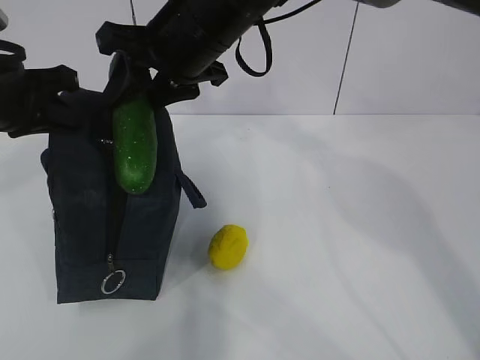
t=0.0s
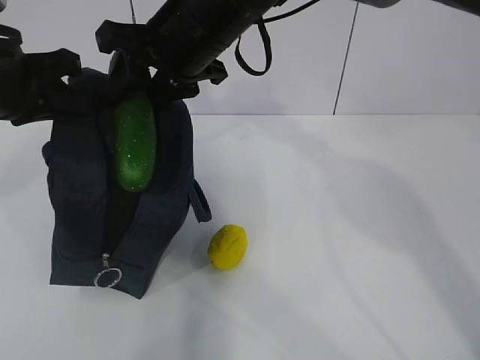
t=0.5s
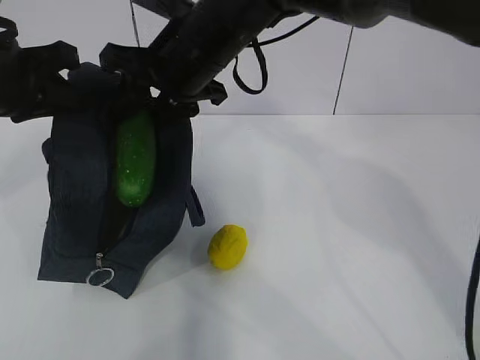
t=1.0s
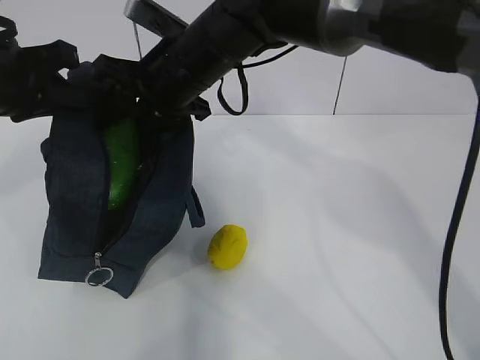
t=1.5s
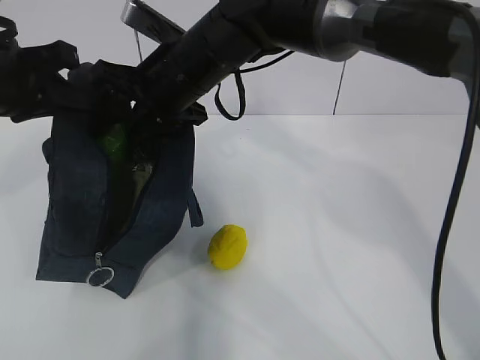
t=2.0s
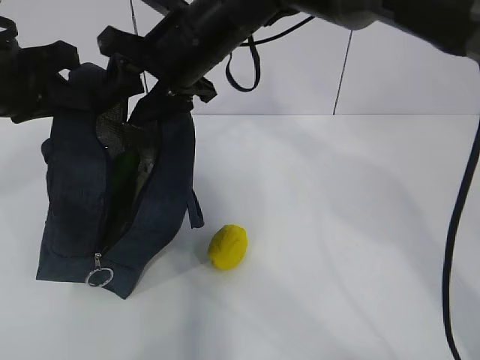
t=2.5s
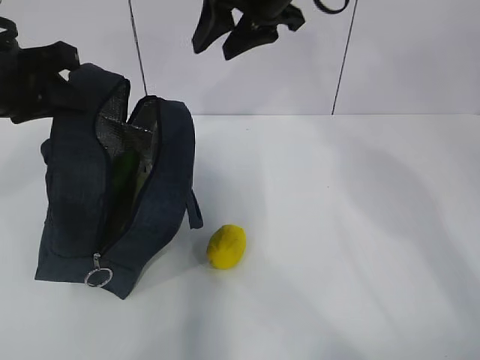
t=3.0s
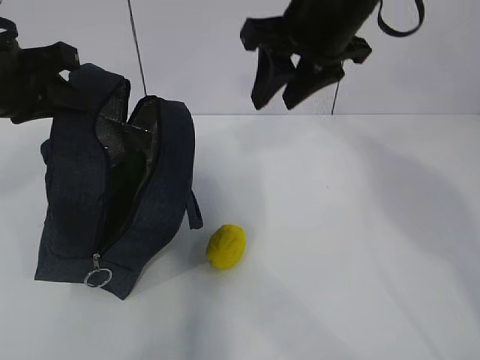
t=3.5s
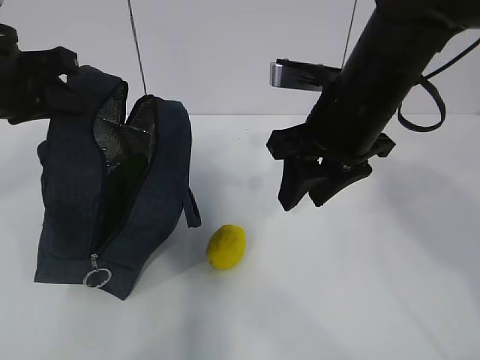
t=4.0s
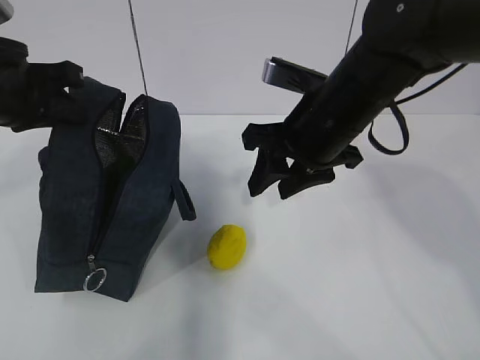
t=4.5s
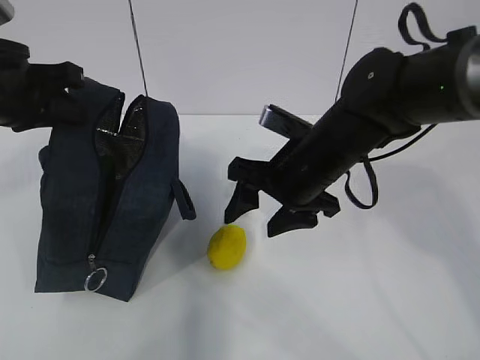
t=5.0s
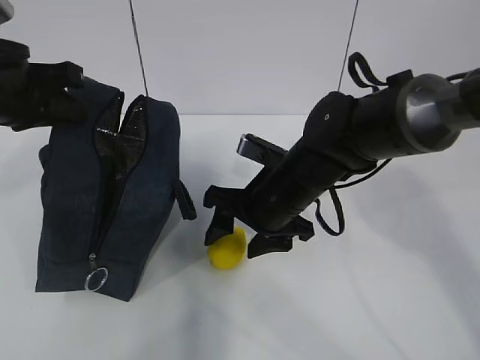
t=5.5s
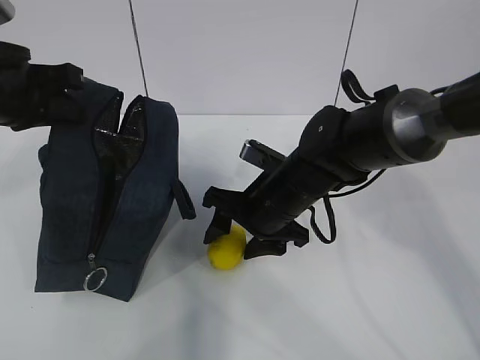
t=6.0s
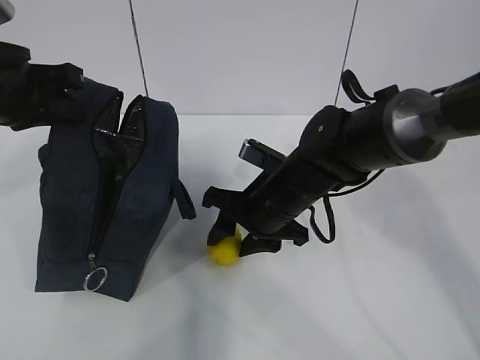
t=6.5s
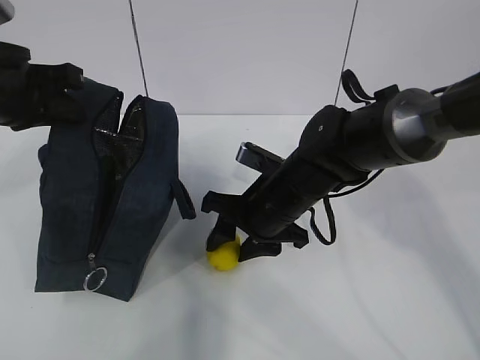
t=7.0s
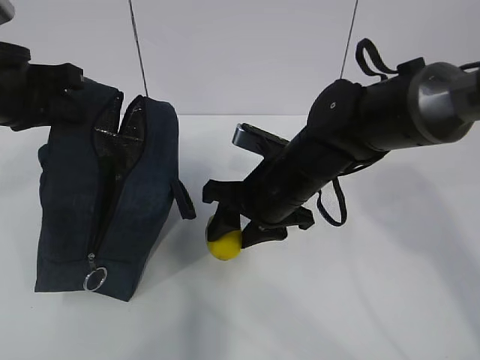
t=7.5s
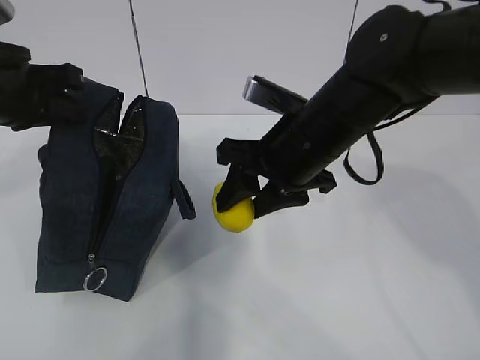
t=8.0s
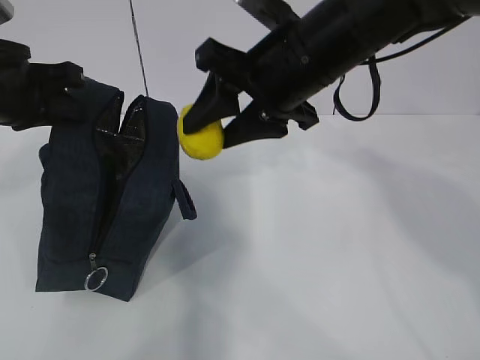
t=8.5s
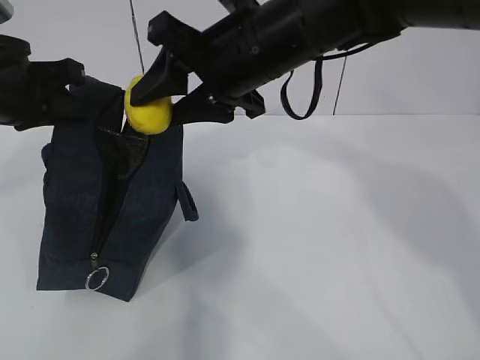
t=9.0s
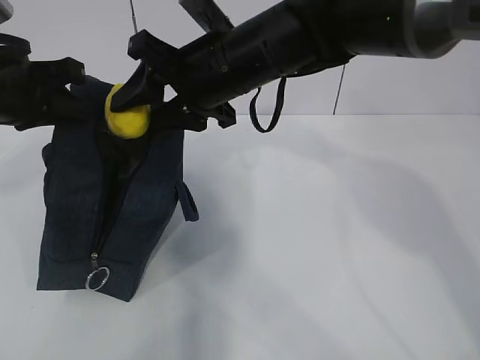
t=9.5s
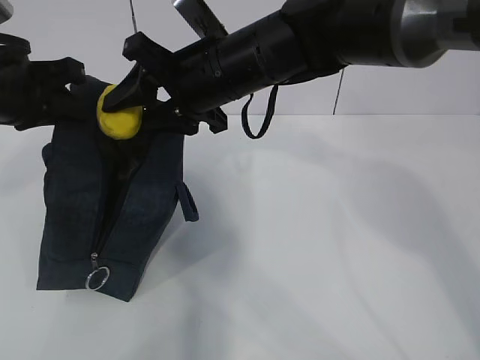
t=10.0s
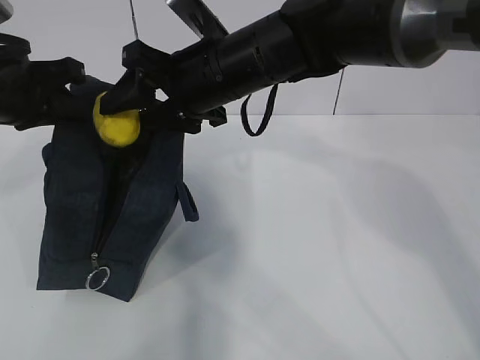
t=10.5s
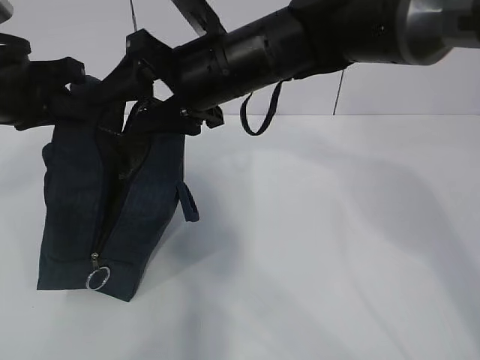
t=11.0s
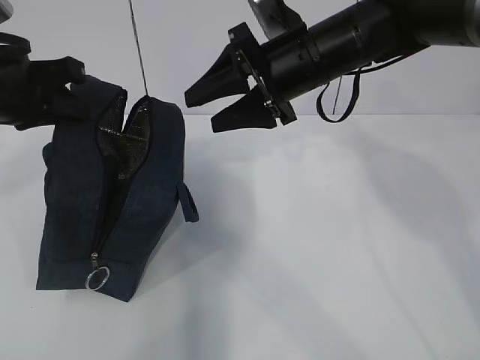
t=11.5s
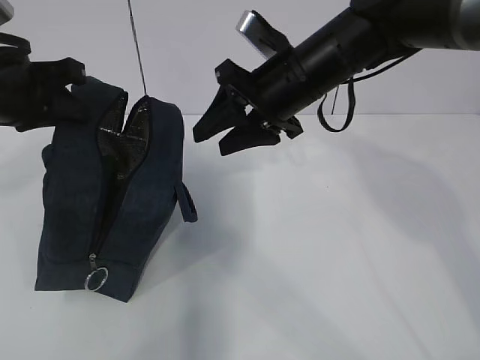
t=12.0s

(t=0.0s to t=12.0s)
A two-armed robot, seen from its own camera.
Step, t=4.5s - t=6.0s: Grab the lunch bag with your right hand.
t=0.0s - t=2.0s: The right gripper heads downward, covering some 5 cm.
t=2.0s - t=4.0s: The right gripper shifts some 15 cm to the right and backward.
t=4.0s - t=6.0s: The right gripper moves downward and to the left, about 15 cm.
t=6.0s - t=8.0s: The right gripper is displaced upward by roughly 10 cm.
t=8.0s - t=10.0s: The right gripper moves to the left and forward, approximately 10 cm.
t=10.0s - t=12.0s: The right gripper heads to the right, covering approximately 10 cm.

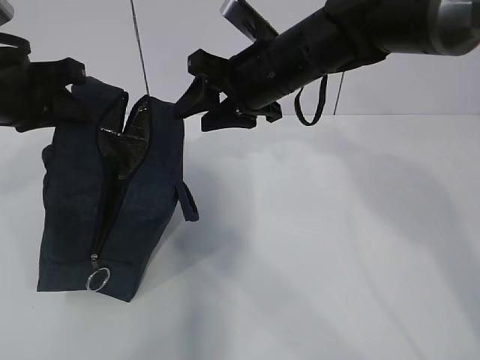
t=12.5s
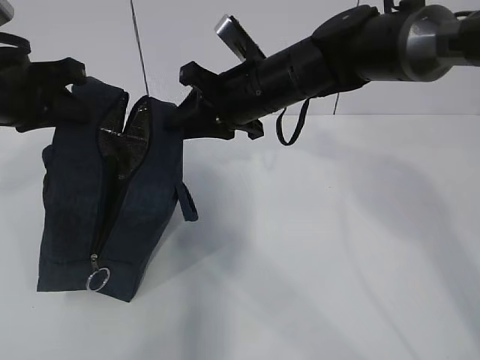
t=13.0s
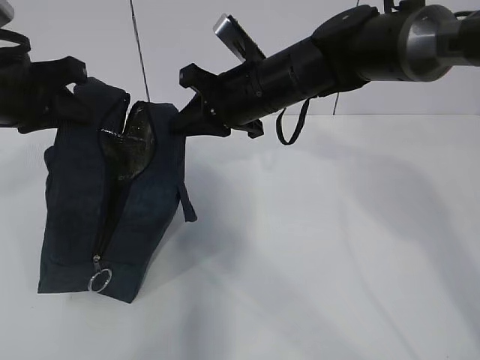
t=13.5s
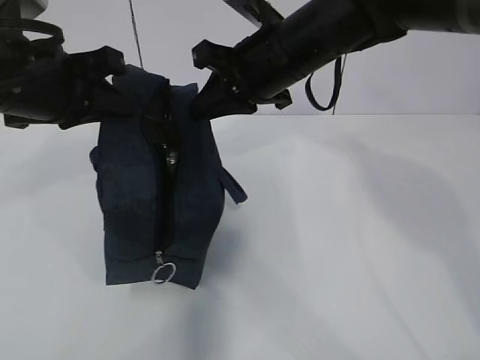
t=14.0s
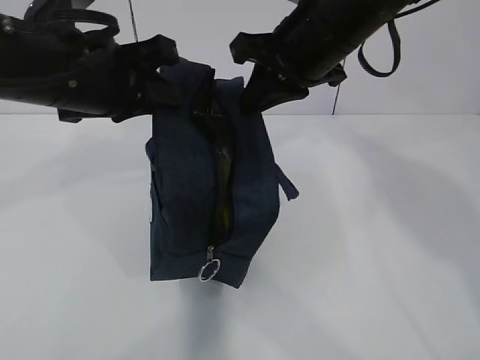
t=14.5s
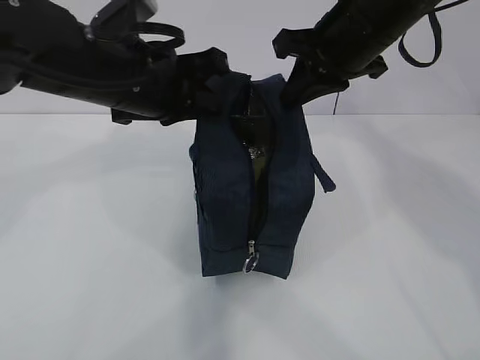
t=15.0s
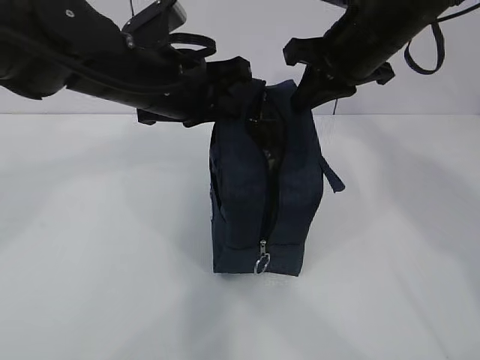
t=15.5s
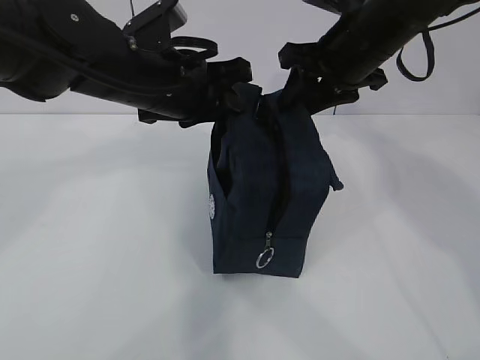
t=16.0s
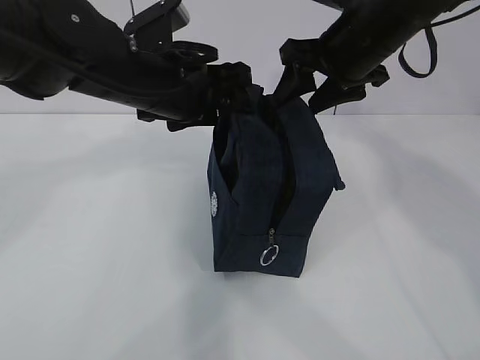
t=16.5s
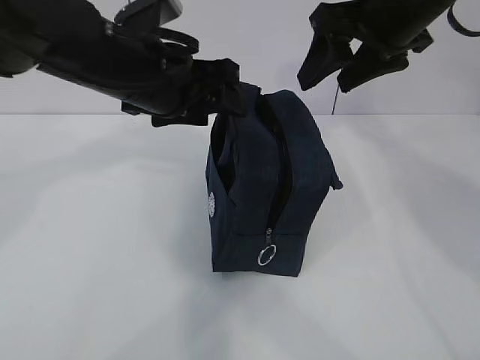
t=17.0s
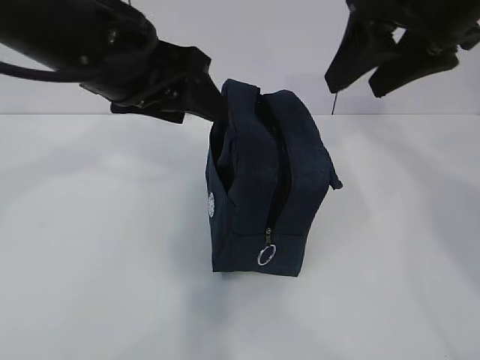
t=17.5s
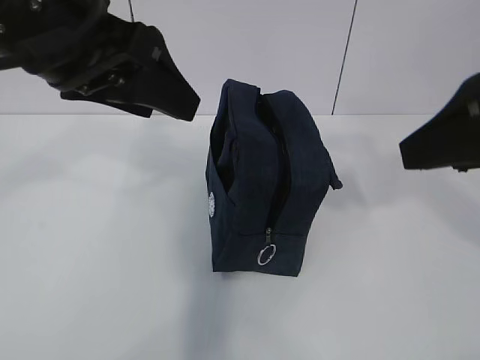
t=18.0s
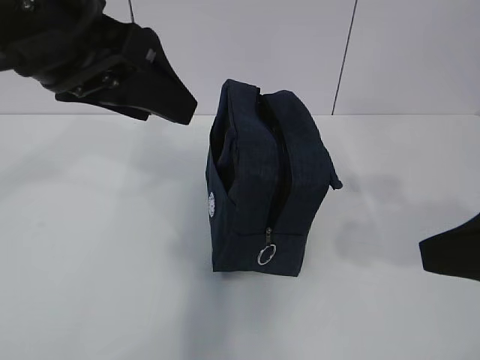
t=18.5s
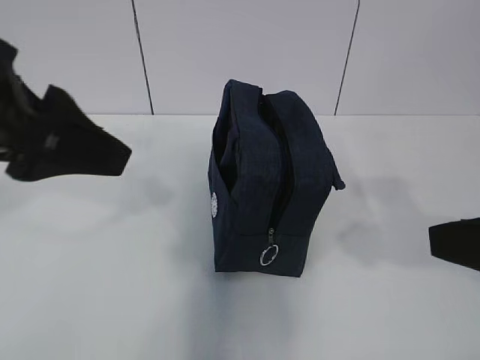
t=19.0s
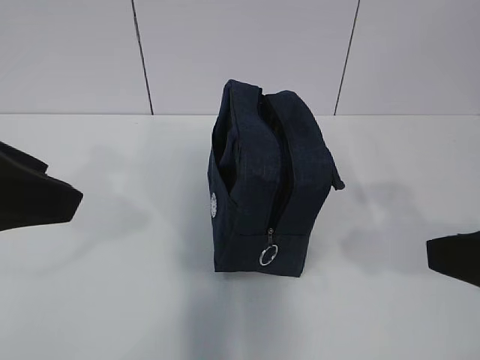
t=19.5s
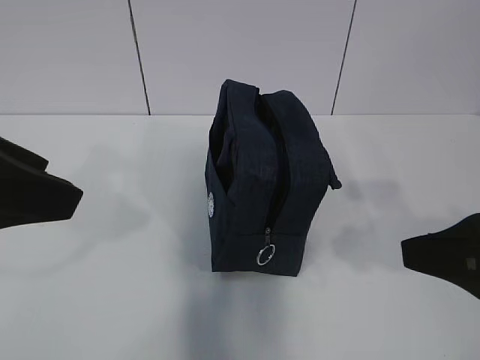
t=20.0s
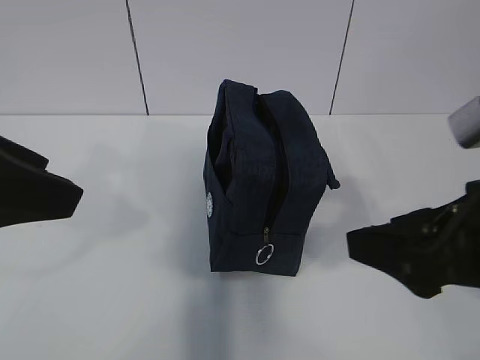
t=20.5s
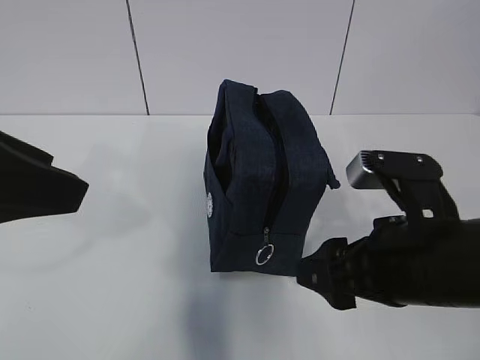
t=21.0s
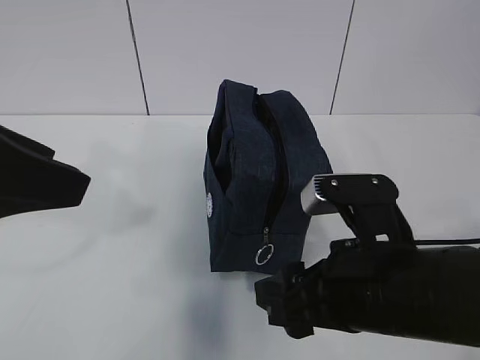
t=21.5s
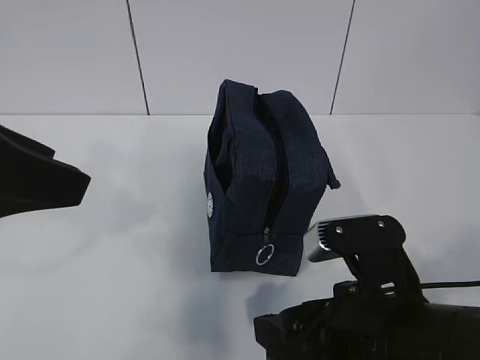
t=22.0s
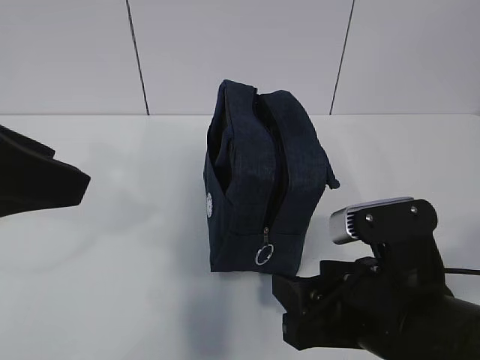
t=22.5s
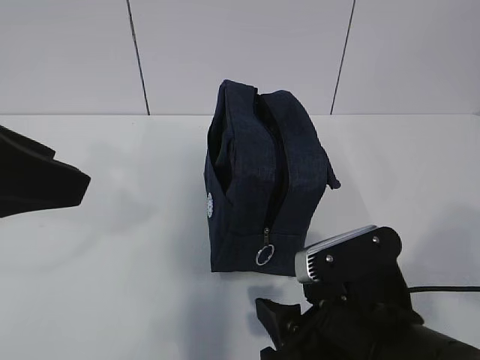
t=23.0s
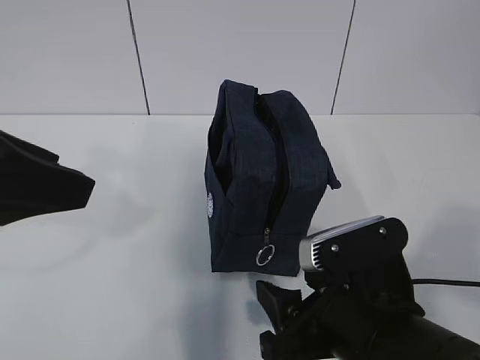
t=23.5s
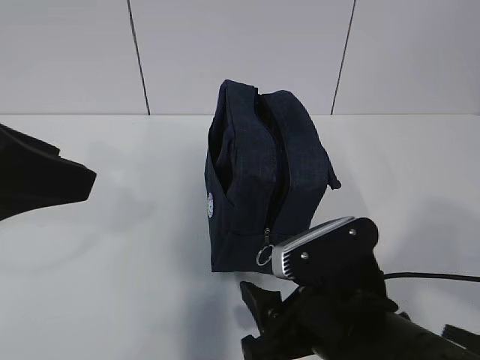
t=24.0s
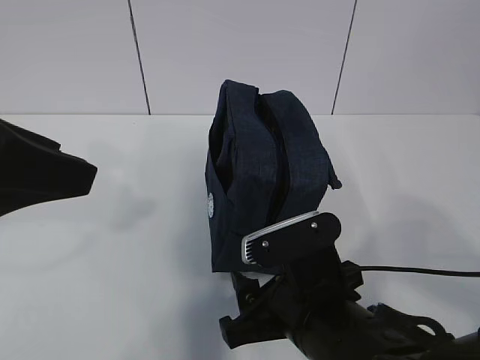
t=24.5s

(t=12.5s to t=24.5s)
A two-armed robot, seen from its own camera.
t=12.5s - t=14.5s: The left gripper moves to the right, about 10 cm, while the right gripper shifts about 5 cm upward, and closes.
t=14.5s - t=16.5s: The two grippers go approximately 5 cm to the right. The right gripper opens. The left gripper opens.
t=16.5s - t=18.5s: The right gripper shifts about 25 cm backward. The left gripper heads upward, backward and to the left, covering some 15 cm.
t=18.5s - t=20.5s: The left gripper moves backward and to the left, approximately 10 cm.
t=20.5s - t=22.5s: The right gripper goes approximately 10 cm downward and to the left.
t=22.5s - t=24.5s: The right gripper moves to the left, some 5 cm.

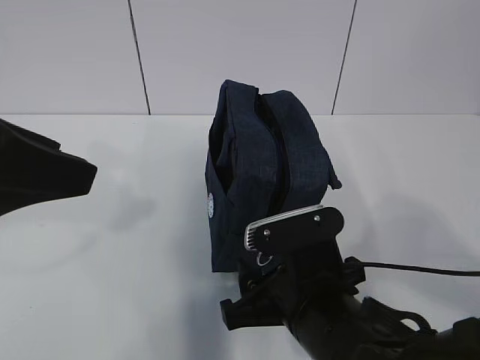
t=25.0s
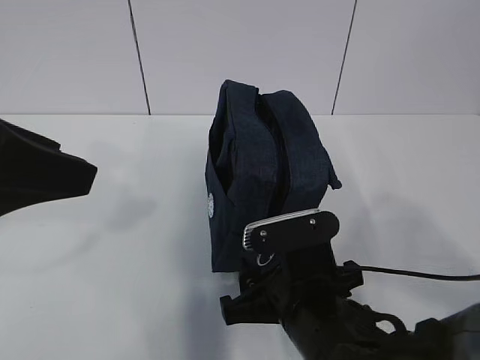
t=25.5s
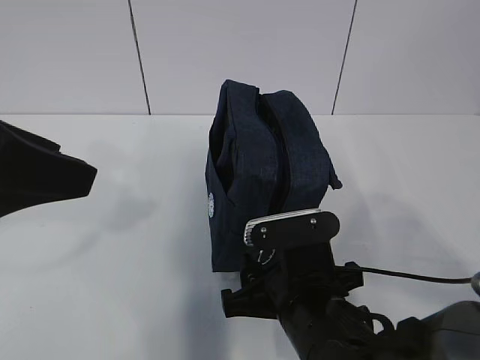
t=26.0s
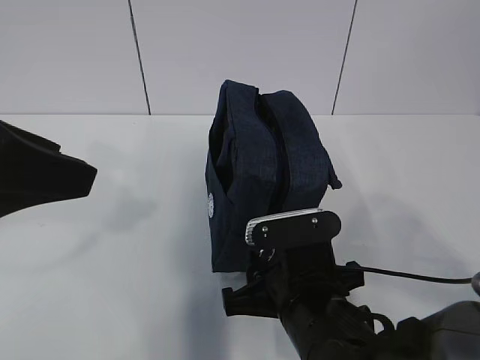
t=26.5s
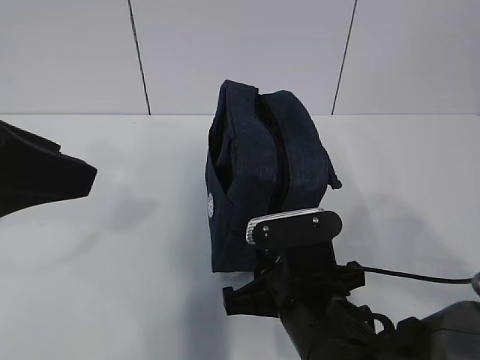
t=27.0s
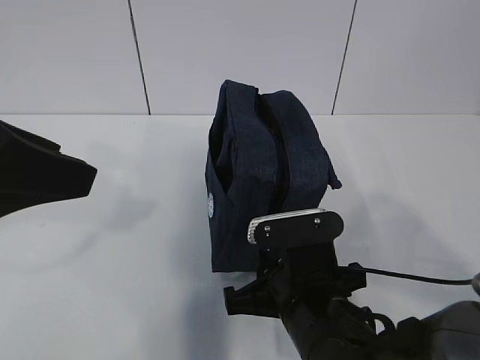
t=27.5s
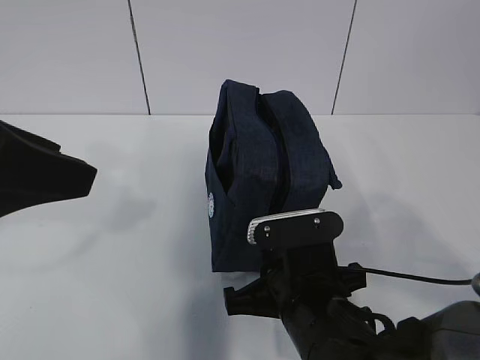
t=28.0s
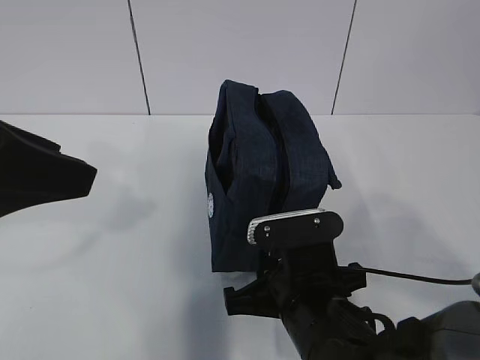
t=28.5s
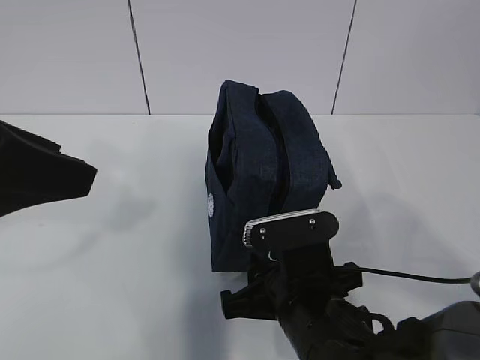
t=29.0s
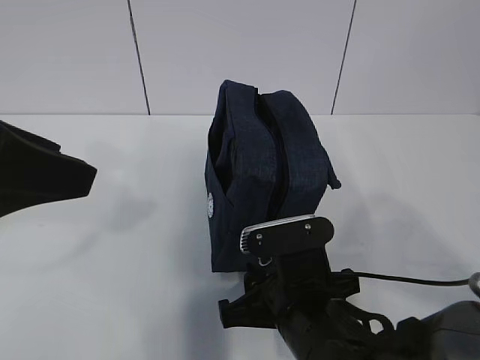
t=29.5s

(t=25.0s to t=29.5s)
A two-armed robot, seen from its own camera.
t=25.0s - t=27.0s: The right gripper closes.
t=27.0s - t=29.5s: The two grippers keep their place.
